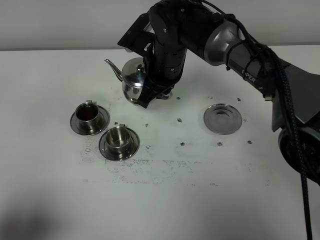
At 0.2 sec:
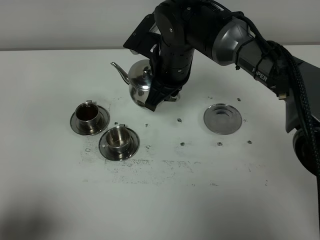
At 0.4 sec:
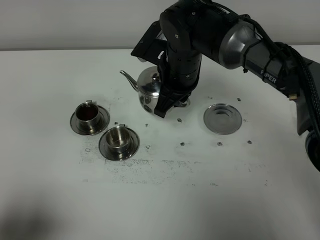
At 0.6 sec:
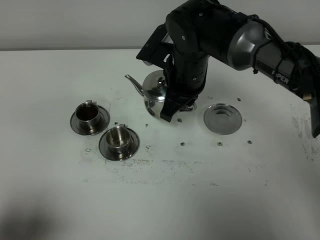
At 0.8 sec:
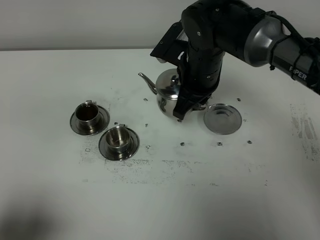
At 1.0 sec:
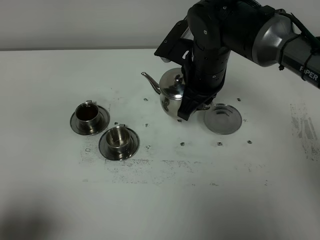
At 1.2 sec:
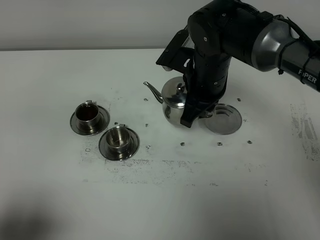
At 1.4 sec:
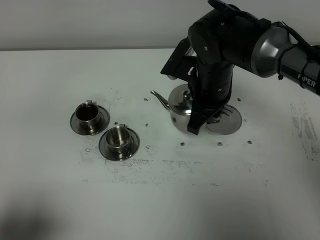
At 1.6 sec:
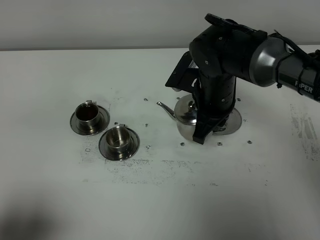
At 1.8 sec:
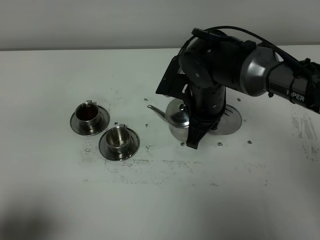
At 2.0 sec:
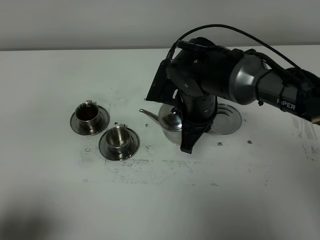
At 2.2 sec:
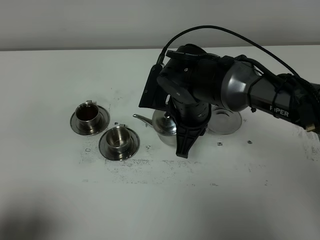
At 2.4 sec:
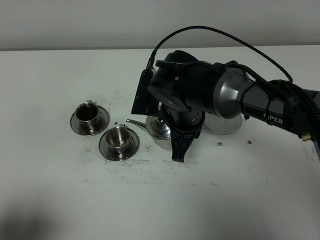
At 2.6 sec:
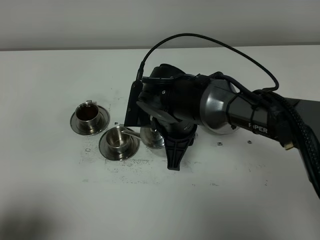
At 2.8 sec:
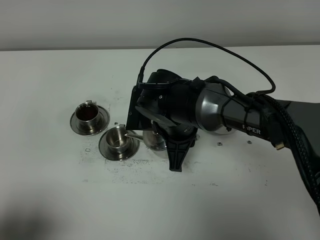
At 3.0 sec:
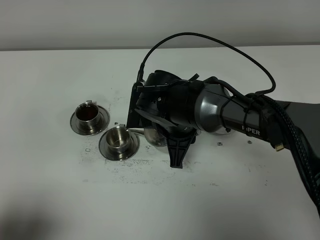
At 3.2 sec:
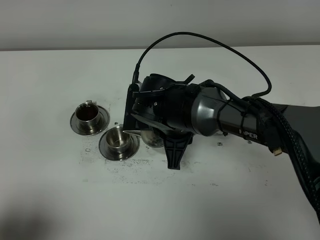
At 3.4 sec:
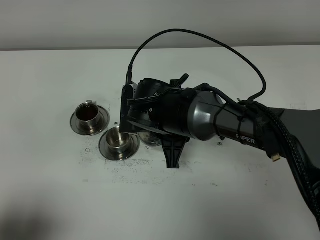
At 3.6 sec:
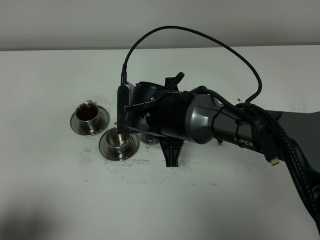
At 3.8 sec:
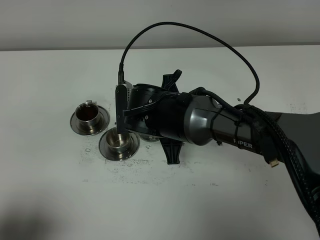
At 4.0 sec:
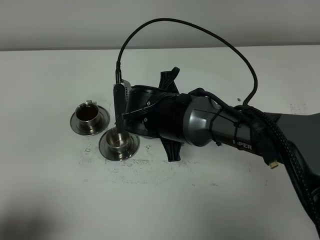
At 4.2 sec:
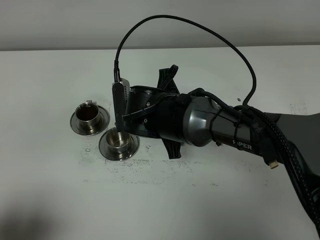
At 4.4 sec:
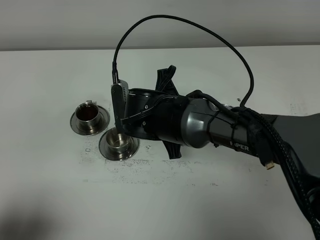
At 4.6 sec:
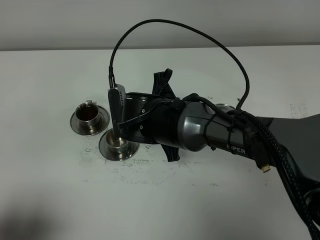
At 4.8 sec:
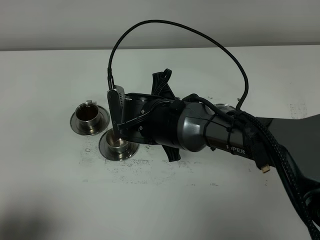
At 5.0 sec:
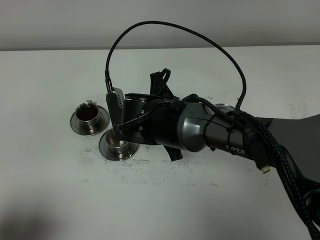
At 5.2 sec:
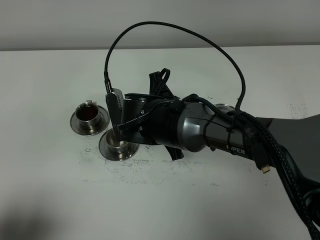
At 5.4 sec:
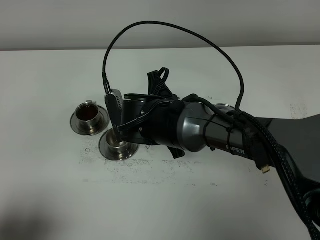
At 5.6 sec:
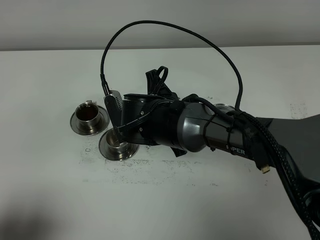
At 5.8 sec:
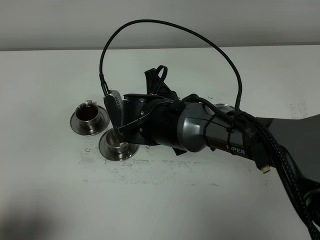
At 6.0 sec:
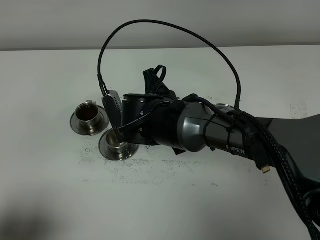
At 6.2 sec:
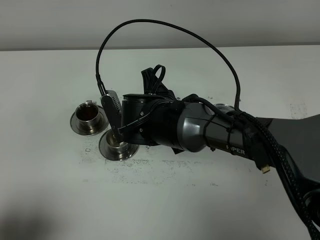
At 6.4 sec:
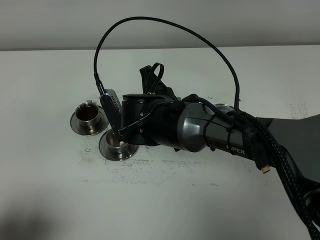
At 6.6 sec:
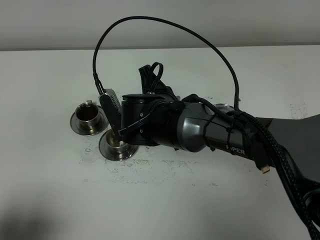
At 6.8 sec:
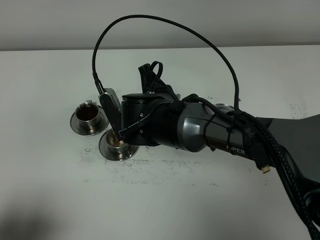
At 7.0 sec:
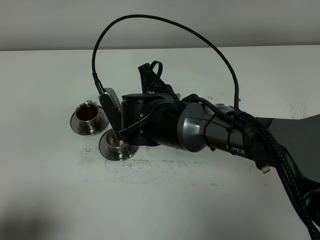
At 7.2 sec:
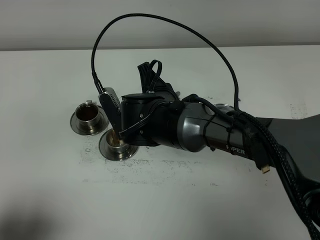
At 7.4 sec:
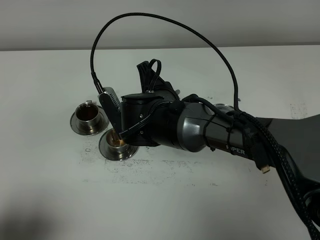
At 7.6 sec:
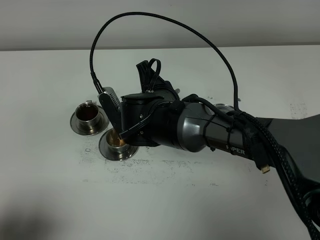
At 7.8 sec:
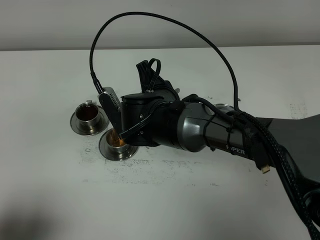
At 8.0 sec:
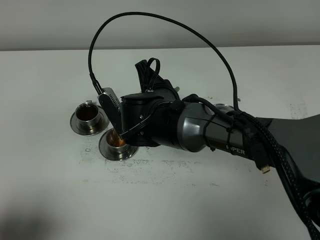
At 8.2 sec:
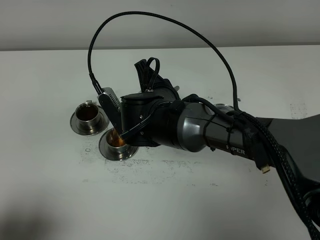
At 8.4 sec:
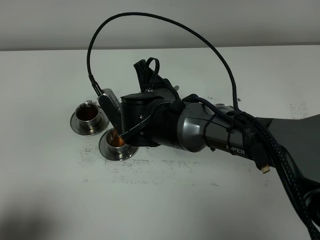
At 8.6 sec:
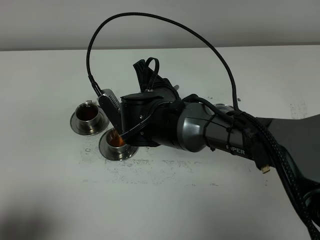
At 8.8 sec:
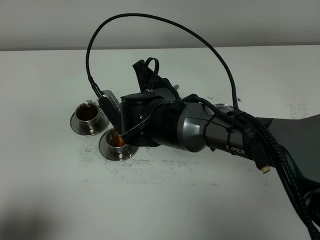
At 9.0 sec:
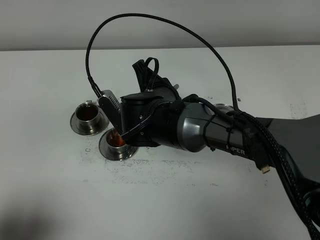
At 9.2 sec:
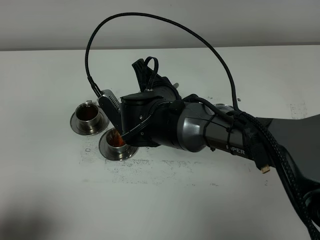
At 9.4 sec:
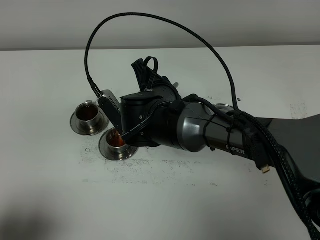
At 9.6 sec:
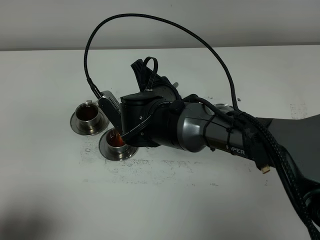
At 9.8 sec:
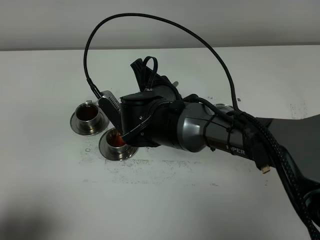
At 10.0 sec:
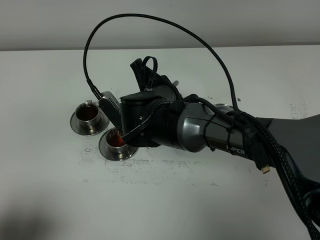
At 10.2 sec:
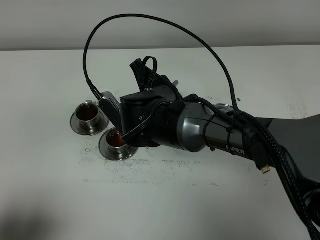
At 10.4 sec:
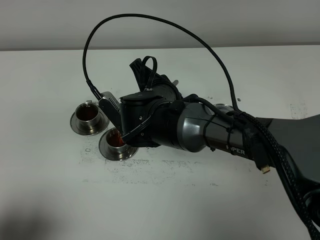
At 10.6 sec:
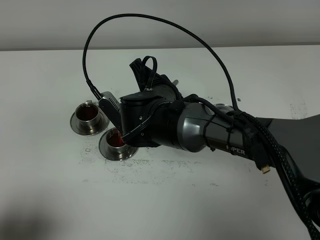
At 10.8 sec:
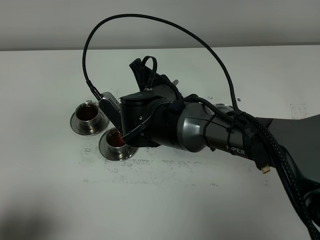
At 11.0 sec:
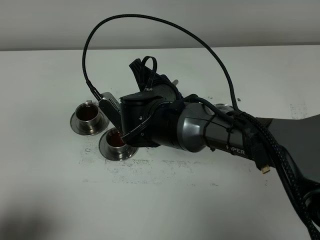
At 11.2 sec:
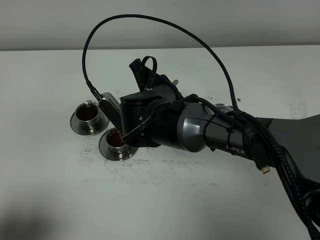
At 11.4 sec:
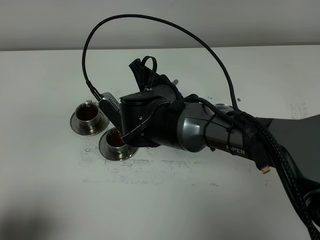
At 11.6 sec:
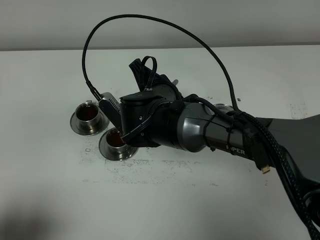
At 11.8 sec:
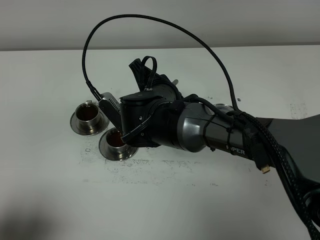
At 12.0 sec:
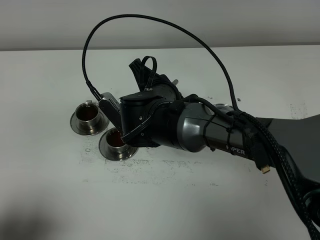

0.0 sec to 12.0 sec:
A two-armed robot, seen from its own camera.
Task of the whole recording: grasp the stainless steel teapot and pour the tea into the two stainless steel teacups one by one, put the stainless steel teapot back in its original place.
0.0 sec to 1.6 sec: The right gripper shifts some 10 cm to the right and backward.
1.6 sec to 3.0 sec: The right gripper travels to the left by roughly 5 cm.
3.0 sec to 4.4 sec: The grippers stay close to where they were, moving slightly.
4.4 sec to 6.0 sec: The grippers stay close to where they were, moving slightly.
6.0 sec to 9.0 sec: The grippers make only small movements.
9.0 sec to 10.4 sec: Neither gripper changes place.
10.4 sec to 12.0 sec: Both grippers stay put.

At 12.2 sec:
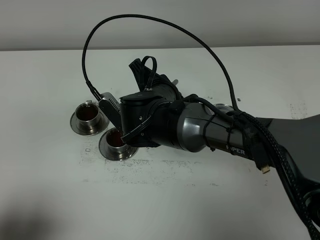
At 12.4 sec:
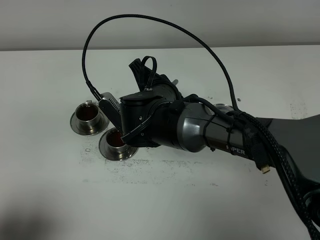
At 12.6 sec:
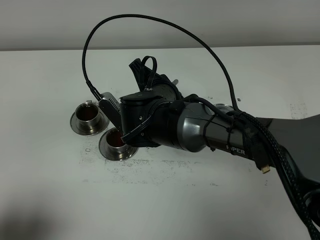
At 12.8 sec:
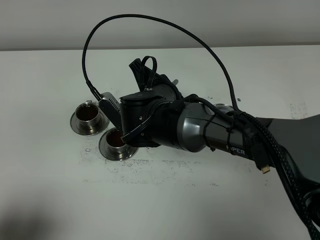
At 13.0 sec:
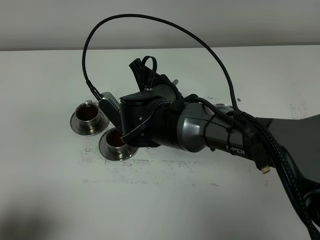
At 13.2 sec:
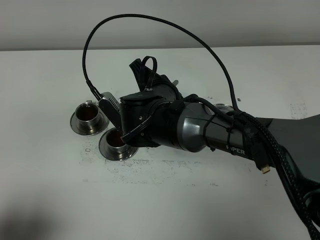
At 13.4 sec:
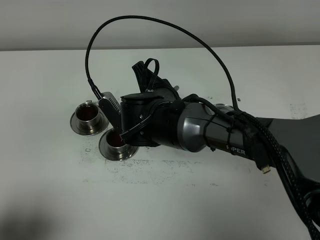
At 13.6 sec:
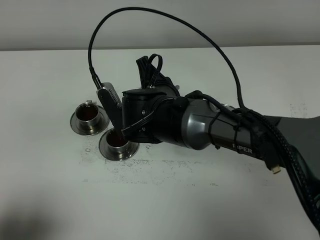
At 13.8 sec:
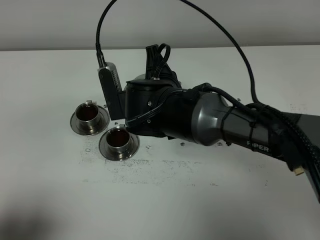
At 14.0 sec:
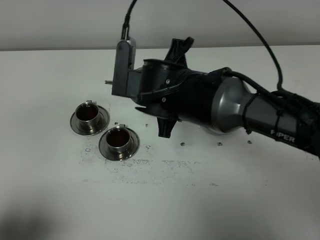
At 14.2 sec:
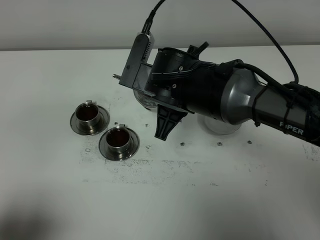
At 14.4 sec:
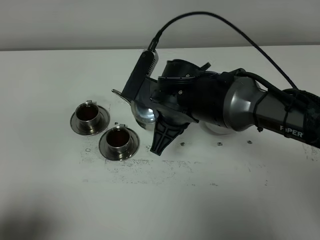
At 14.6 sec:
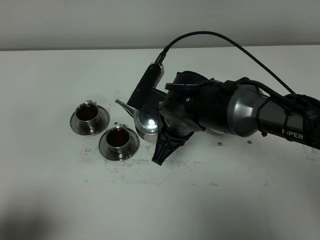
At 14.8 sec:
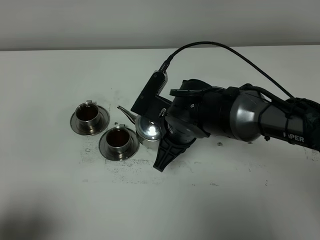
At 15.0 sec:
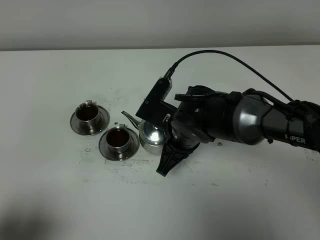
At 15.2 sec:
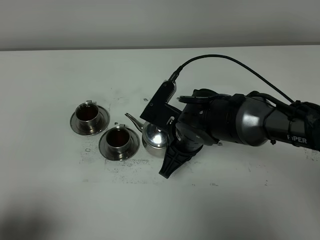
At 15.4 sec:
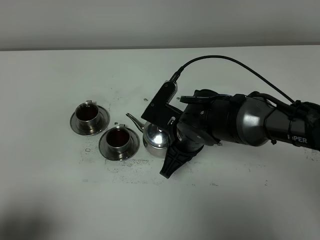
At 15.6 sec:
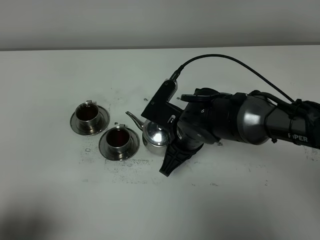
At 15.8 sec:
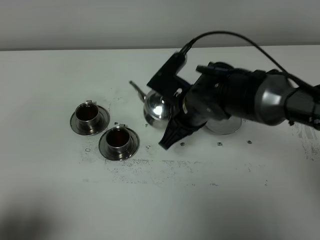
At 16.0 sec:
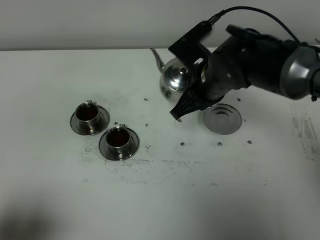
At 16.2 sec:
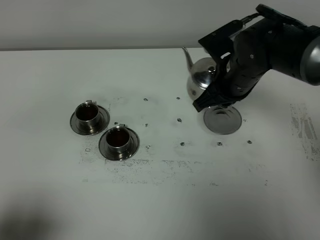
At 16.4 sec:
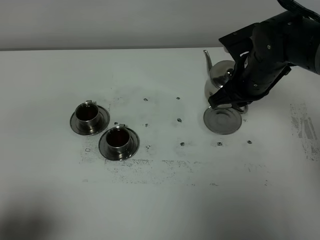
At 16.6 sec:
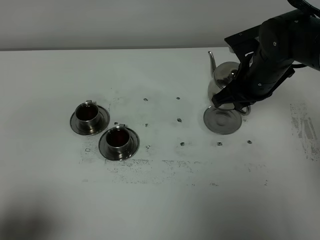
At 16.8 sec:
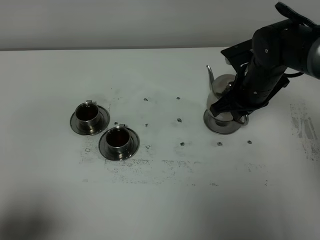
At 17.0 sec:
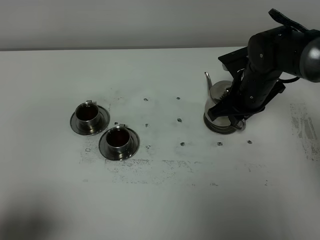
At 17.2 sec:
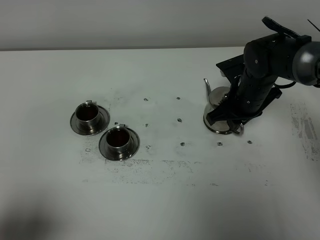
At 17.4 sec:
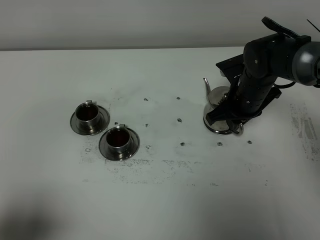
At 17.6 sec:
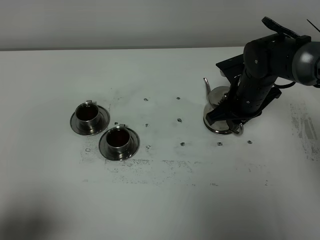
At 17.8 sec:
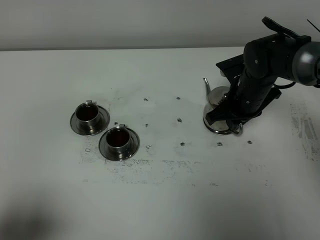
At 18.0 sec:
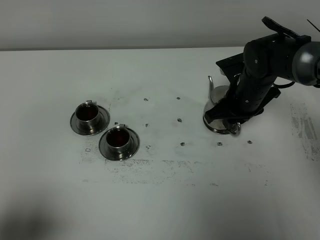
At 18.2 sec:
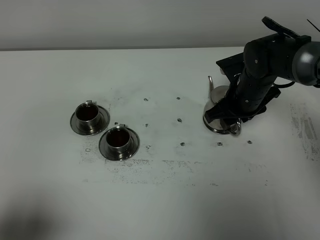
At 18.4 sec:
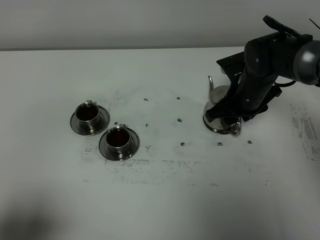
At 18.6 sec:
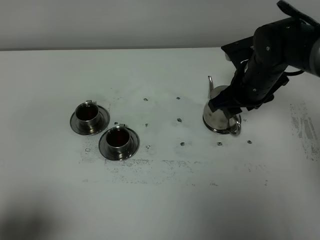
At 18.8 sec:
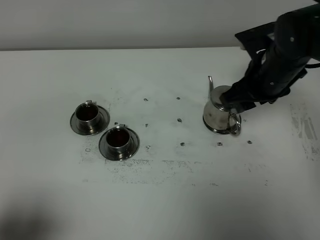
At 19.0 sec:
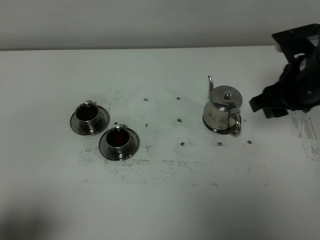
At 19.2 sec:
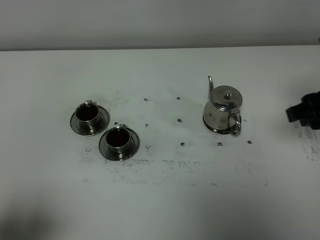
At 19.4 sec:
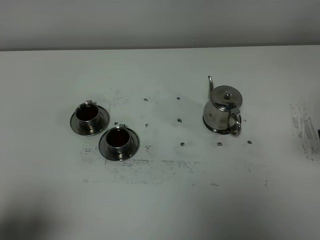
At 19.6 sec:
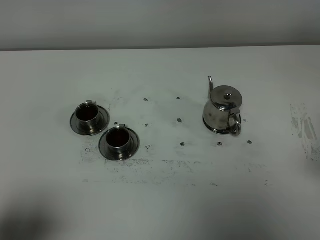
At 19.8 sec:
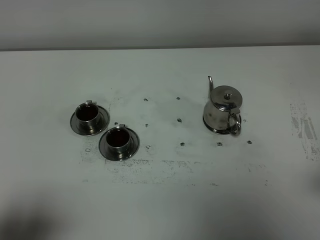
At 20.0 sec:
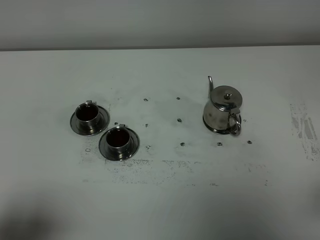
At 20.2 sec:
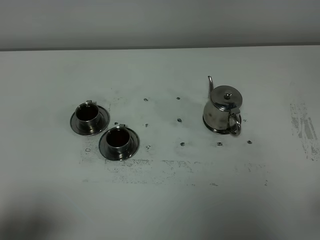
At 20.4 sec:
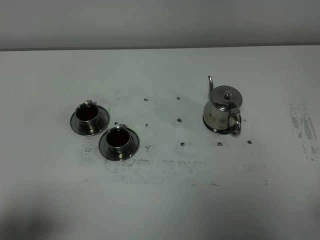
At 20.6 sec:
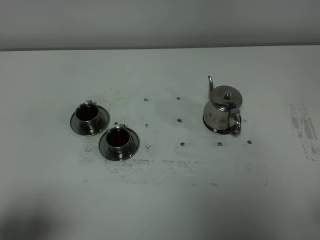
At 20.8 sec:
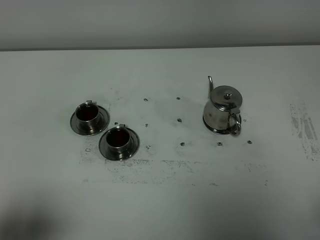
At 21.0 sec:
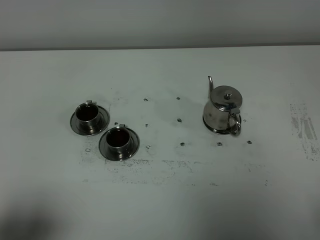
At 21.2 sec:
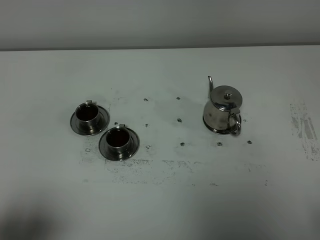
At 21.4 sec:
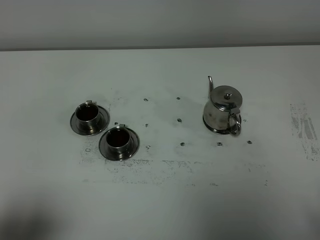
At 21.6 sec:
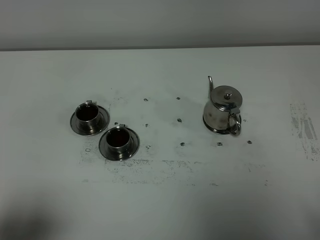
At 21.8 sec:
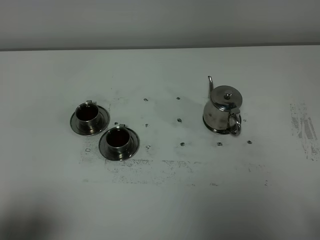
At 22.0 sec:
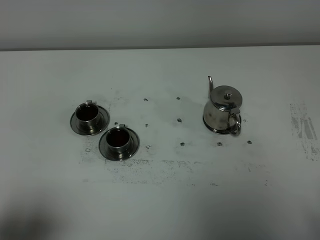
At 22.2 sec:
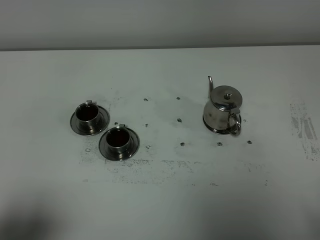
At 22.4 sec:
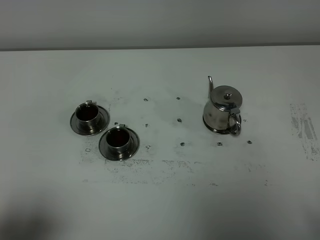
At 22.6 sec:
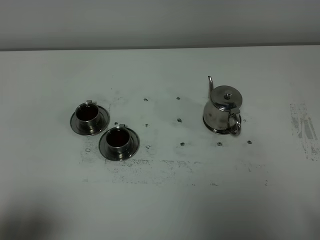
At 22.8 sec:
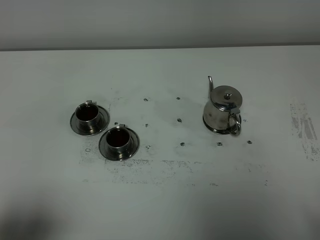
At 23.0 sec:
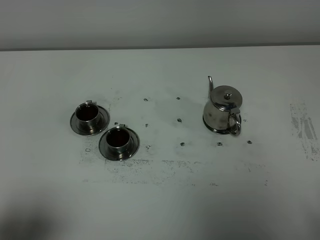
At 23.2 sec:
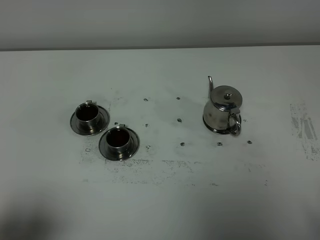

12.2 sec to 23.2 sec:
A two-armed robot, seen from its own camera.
Task of the whole recording: grasp the stainless steel teapot and pour the tea into the two stainless steel teacups one by one, put the stainless steel teapot back in its original place.
13.8 sec to 15.4 sec: The right gripper heads downward, covering roughly 10 cm.
15.4 sec to 17.0 sec: The right gripper heads to the right and forward, covering roughly 15 cm.
17.0 sec to 18.4 sec: The right gripper opens its fingers.
18.4 sec to 20.0 sec: The right gripper is displaced backward by about 30 cm.
21.6 sec to 23.2 sec: Neither gripper changes place.
